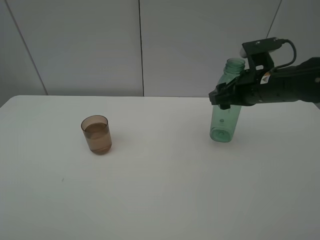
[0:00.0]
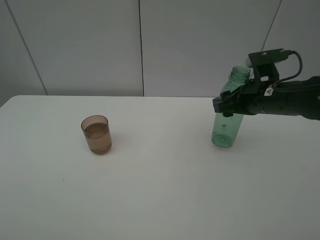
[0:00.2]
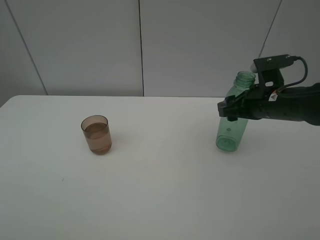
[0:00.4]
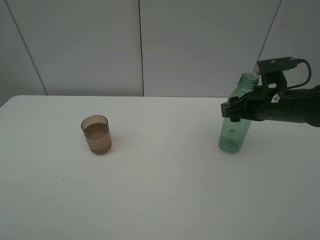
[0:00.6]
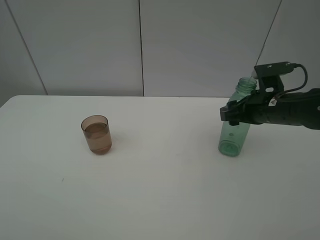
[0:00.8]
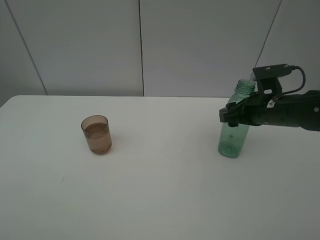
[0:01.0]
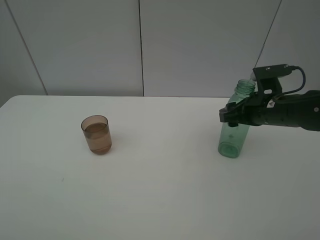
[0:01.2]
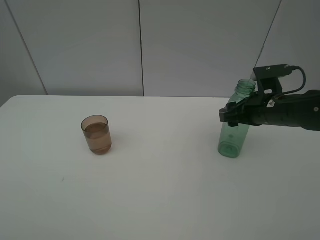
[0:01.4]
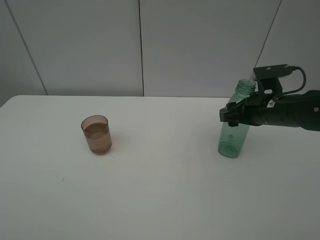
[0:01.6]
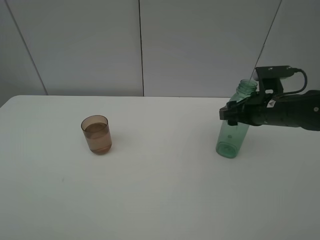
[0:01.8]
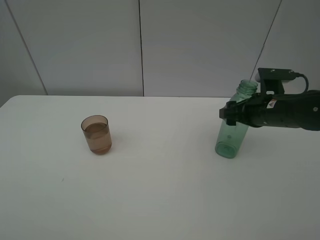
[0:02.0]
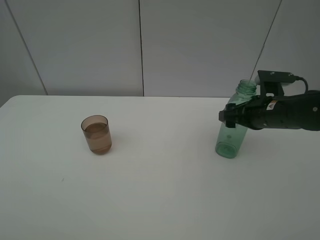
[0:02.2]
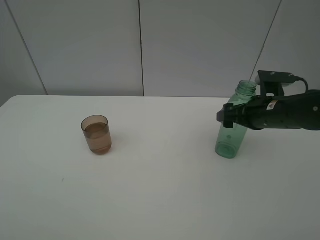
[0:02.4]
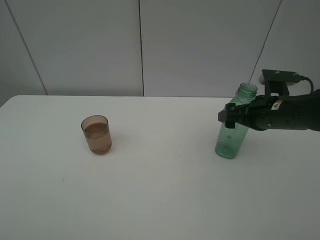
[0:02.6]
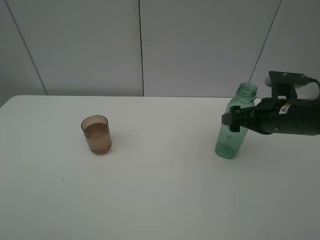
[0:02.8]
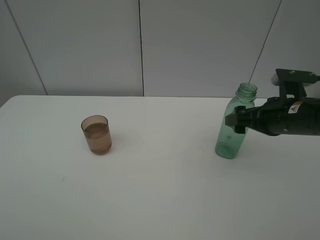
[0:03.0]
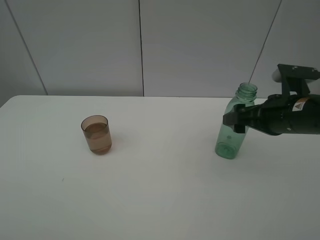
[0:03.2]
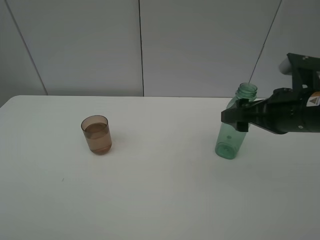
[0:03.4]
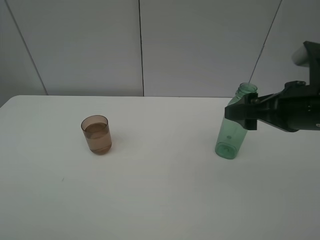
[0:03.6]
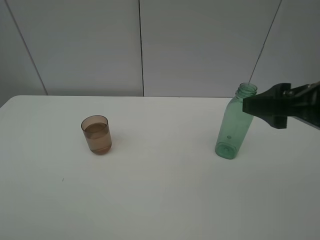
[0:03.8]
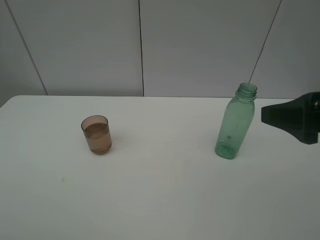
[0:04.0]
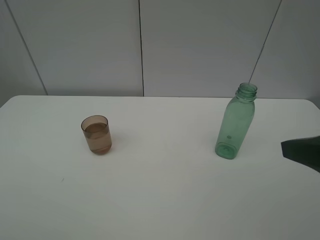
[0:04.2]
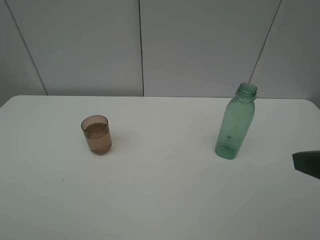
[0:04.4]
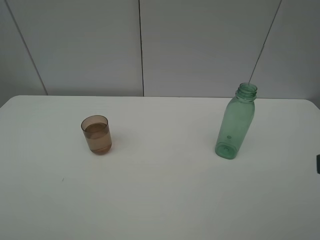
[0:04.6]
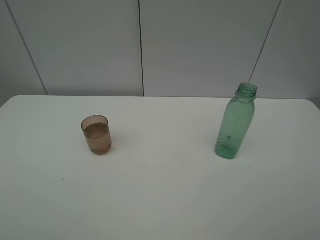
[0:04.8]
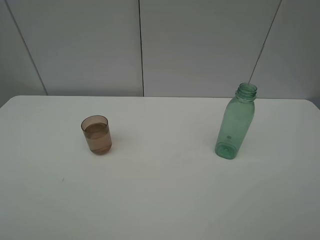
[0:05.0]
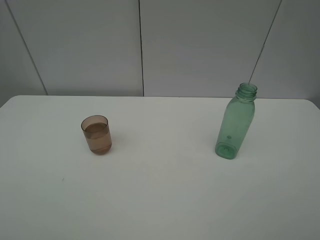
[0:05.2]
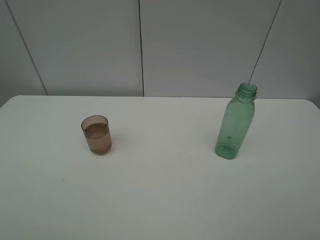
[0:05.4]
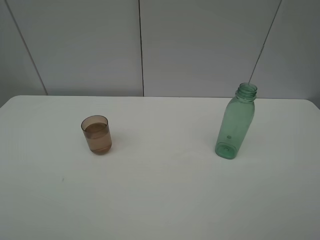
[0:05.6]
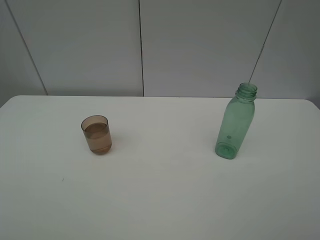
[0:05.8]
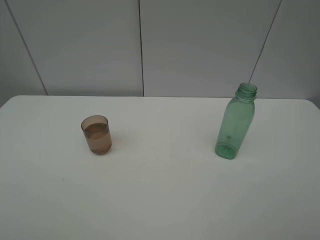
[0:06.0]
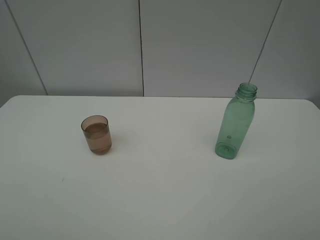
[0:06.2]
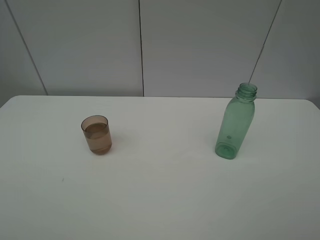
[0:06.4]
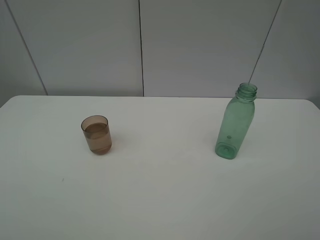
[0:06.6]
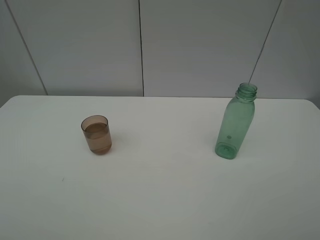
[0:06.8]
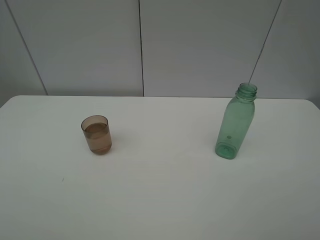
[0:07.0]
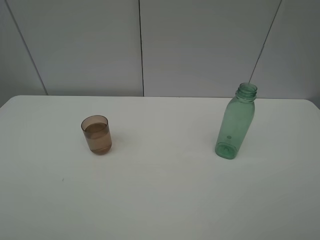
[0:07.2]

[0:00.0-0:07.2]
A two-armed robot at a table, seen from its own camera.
Task of the whole recording: pick up the bottle filled with water and pour it into the pink cup.
Step, 0:00.0 to 0:03.2: Place the green bottle with the right gripper.
0:00.0 to 0:01.4: The grippers stay close to where they were, moving slightly.
0:01.4 to 0:02.8: The right gripper opens.
0:02.8 to 0:04.4: The right gripper travels backward and upward by about 20 cm.
0:04.4 to 0:05.8: The right gripper is displaced backward by roughly 10 cm.
